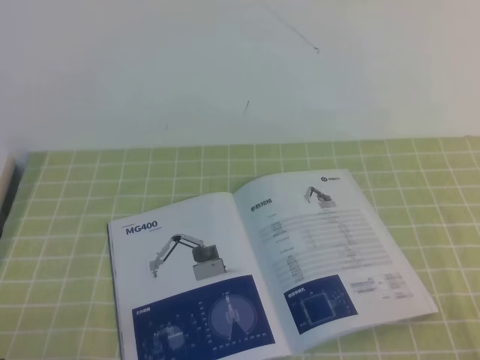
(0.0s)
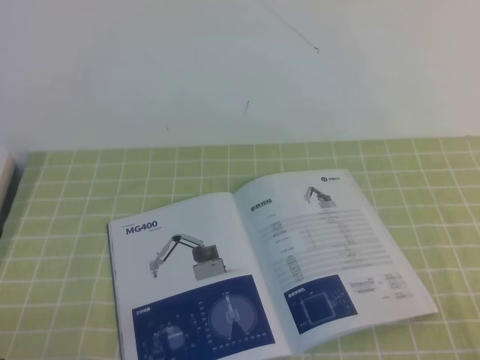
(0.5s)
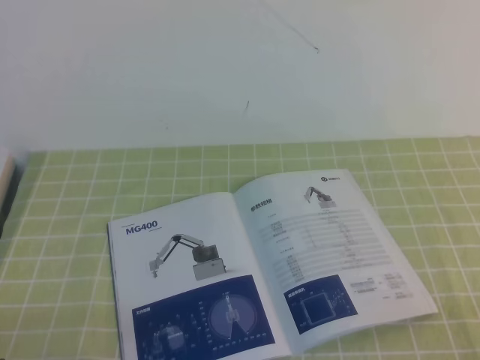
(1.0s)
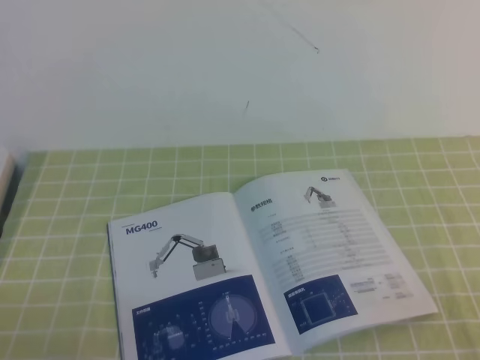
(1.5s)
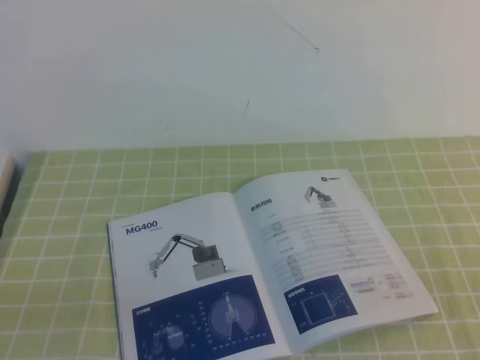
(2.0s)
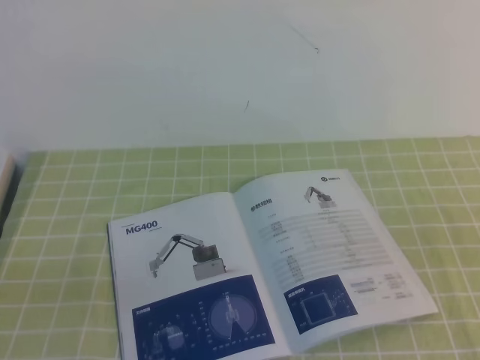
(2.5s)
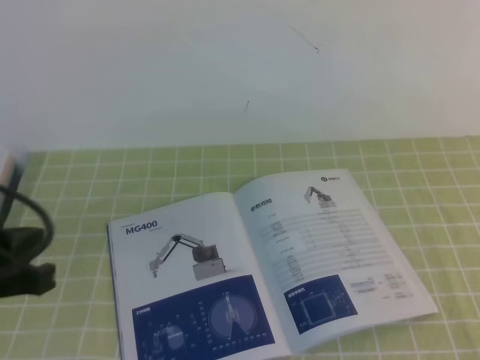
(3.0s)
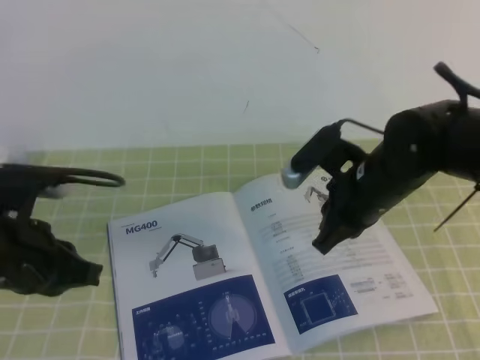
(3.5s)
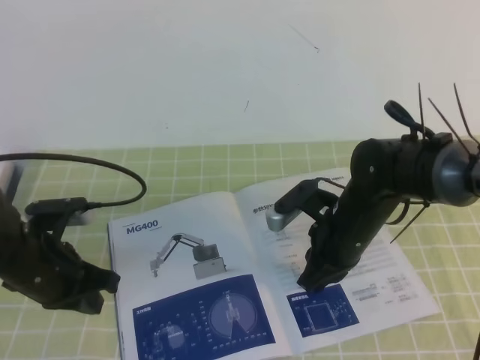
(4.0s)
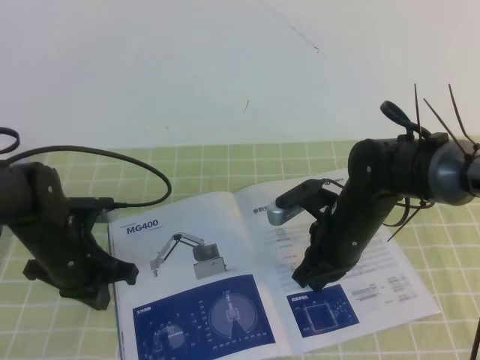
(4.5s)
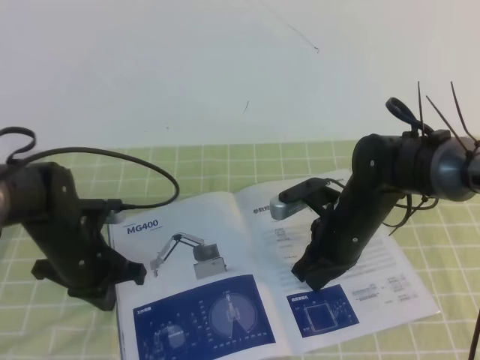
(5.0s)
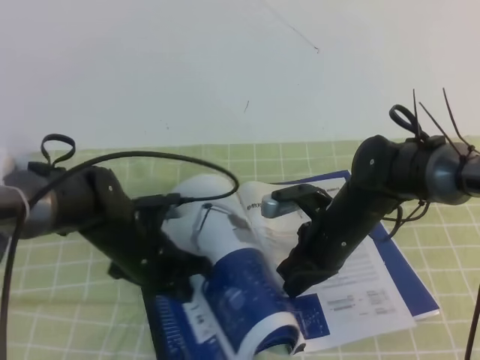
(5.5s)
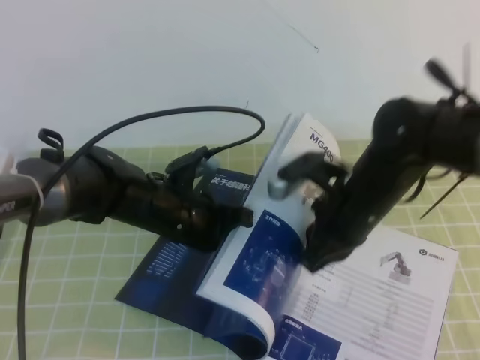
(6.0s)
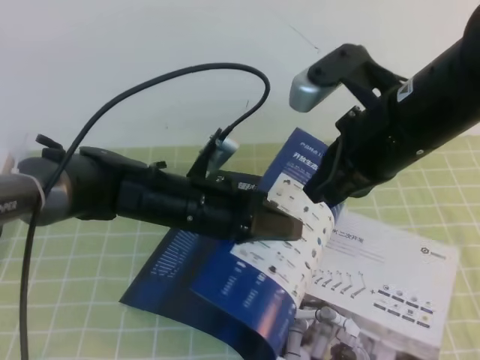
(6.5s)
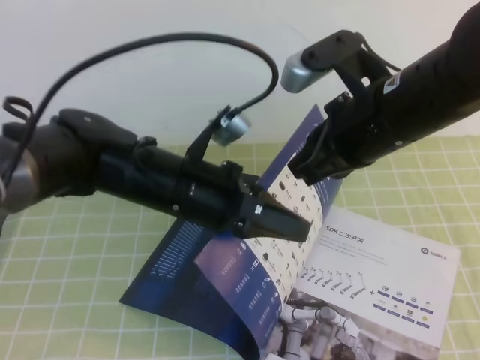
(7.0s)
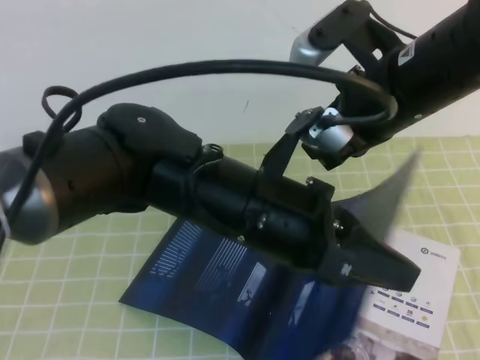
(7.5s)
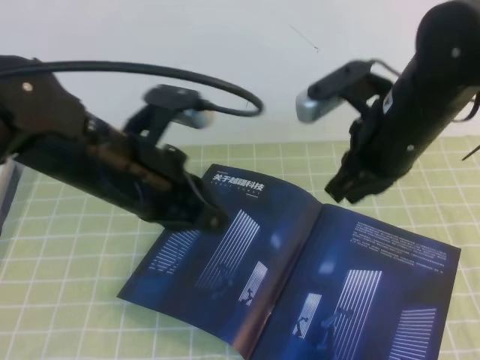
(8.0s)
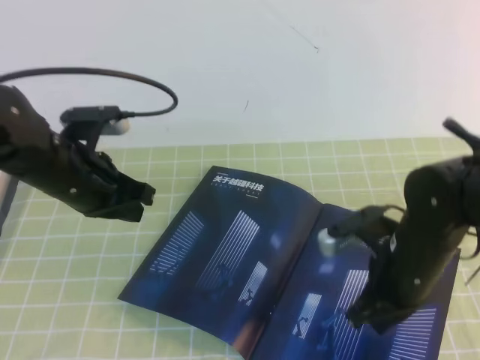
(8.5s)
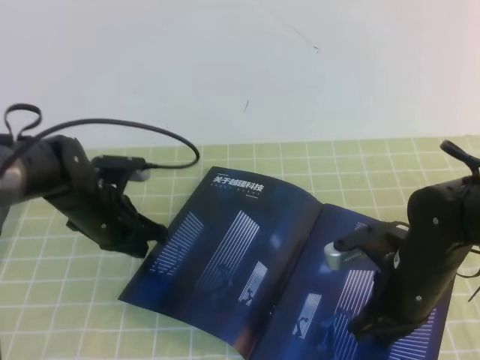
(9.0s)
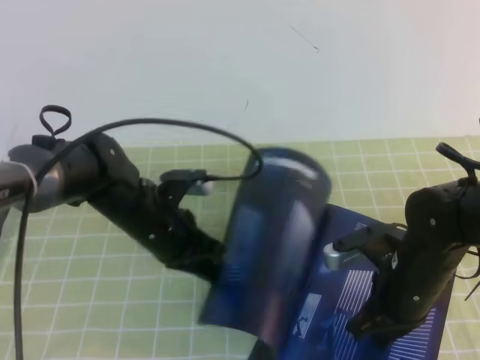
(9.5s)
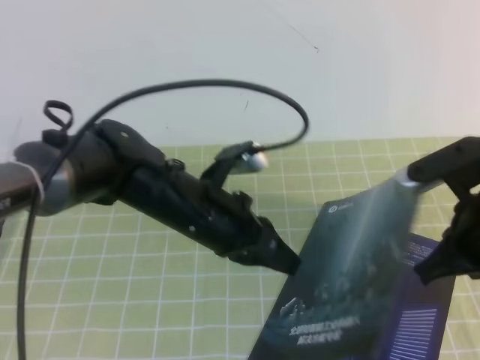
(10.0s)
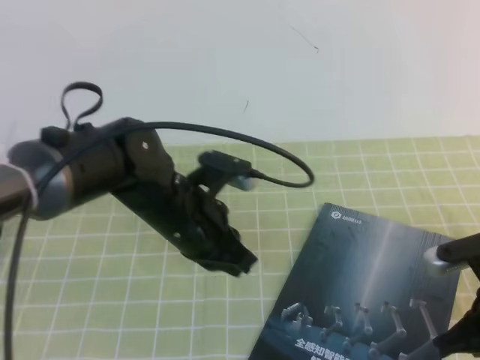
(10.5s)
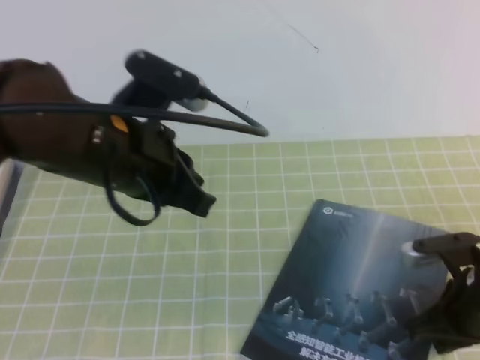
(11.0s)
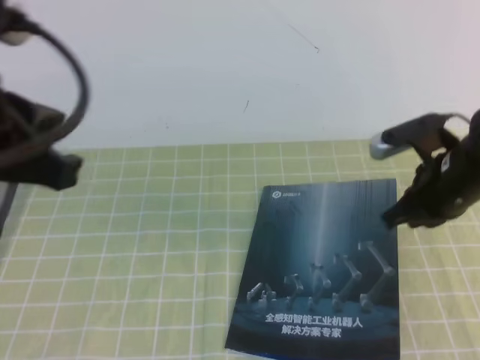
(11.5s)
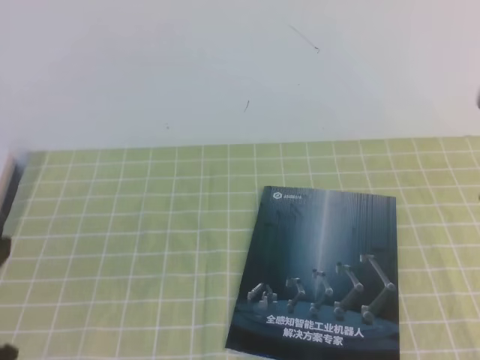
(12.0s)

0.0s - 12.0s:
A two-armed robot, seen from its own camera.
Task of the whole recording: on the green tablecloth, hold the book with one hand and close it with the other.
2.0s - 4.0s: The left gripper shifts approximately 25 cm forward; the right gripper travels forward and to the left by about 35 cm.
4.0s - 6.0s: The right gripper changes place by about 5 cm. The left gripper shifts some 15 cm to the right.
6.0s - 8.0s: The left gripper is displaced upward and backward by roughly 15 cm. The right gripper goes roughly 10 cm upward.
8.0s - 10.0s: The left gripper is displaced downward by roughly 10 cm. The right gripper heads backward, downward and to the right, covering roughly 10 cm.
10.0s - 12.0s: The right gripper goes roughly 10 cm upward and to the right, while the left gripper moves backward, to the left and upward, some 30 cm.

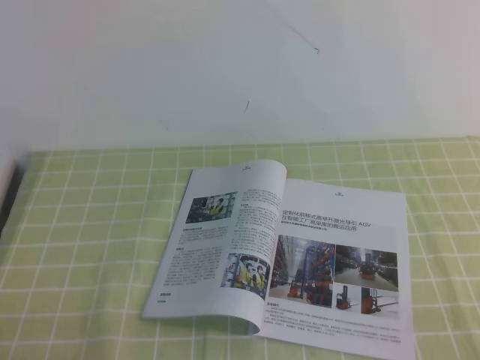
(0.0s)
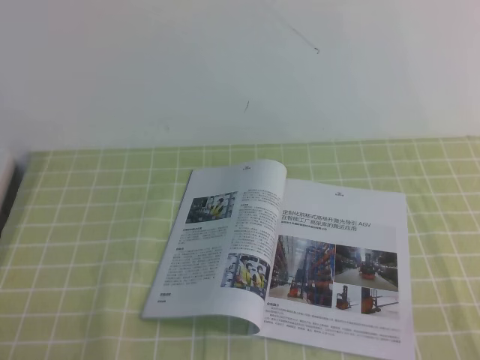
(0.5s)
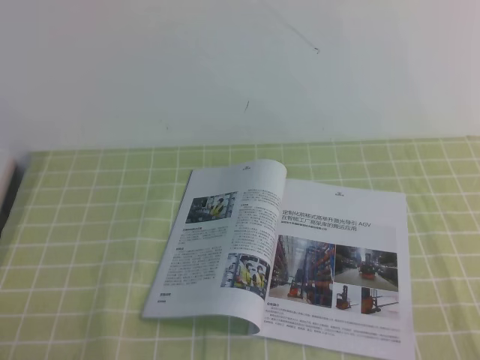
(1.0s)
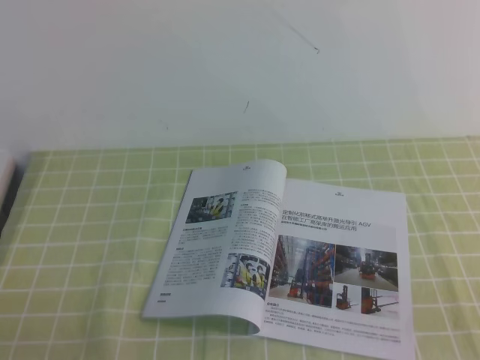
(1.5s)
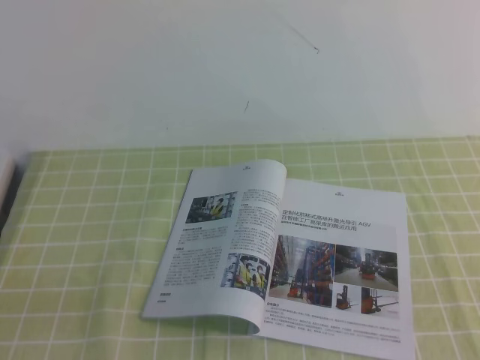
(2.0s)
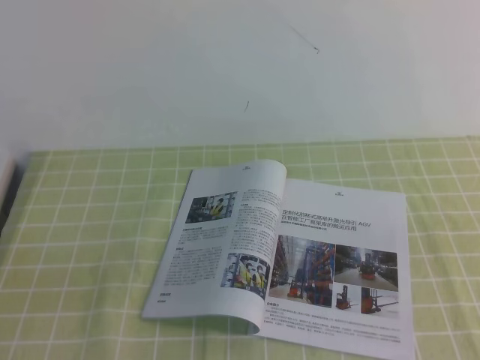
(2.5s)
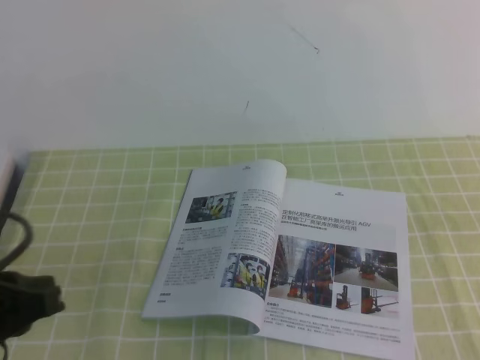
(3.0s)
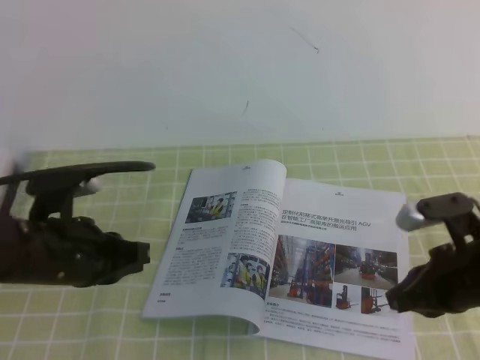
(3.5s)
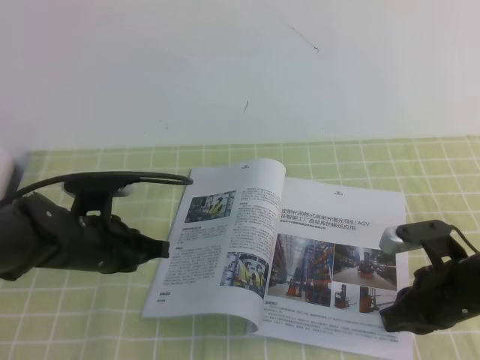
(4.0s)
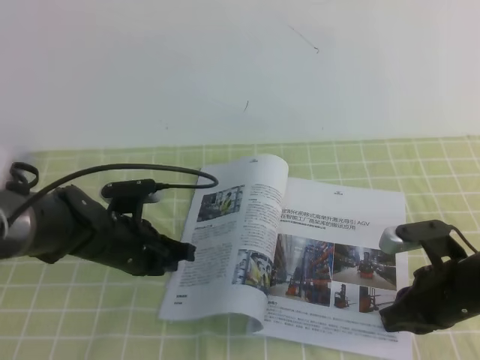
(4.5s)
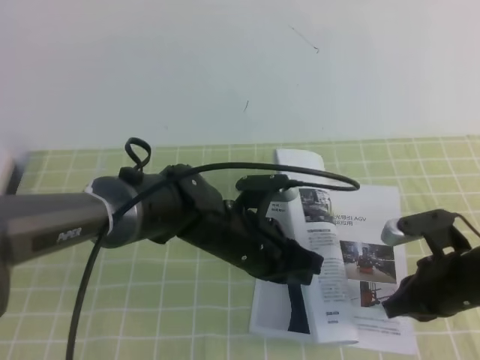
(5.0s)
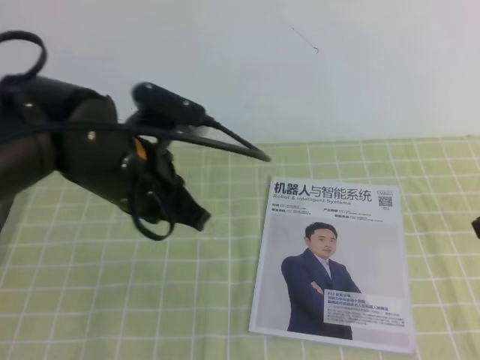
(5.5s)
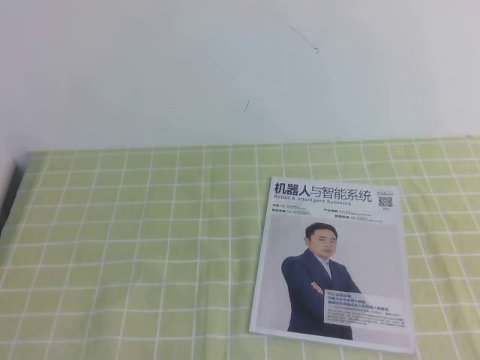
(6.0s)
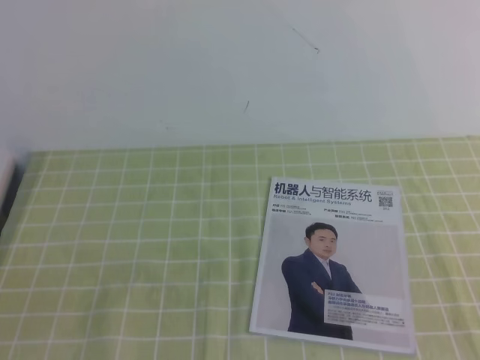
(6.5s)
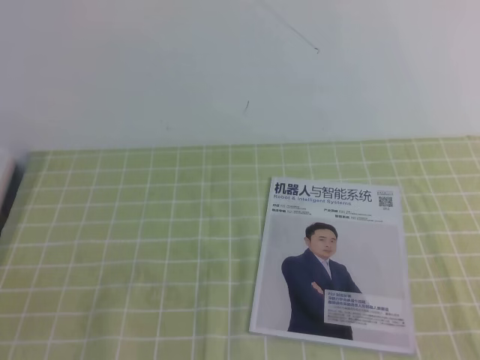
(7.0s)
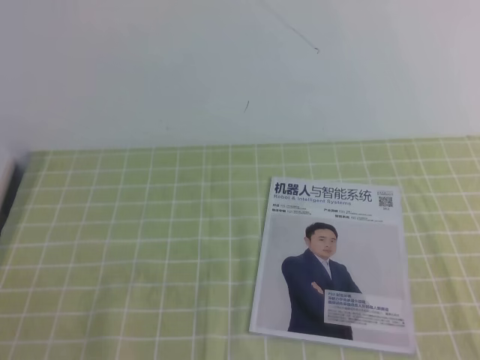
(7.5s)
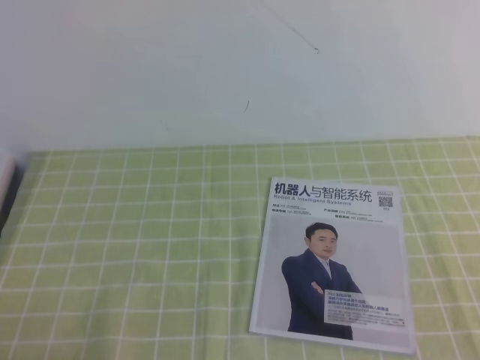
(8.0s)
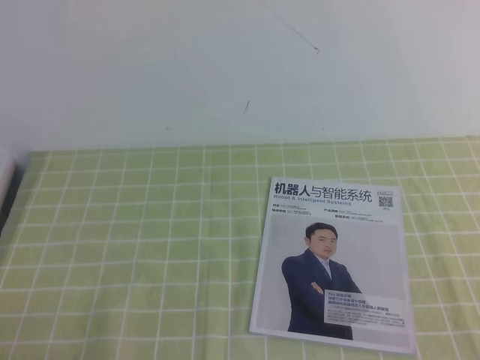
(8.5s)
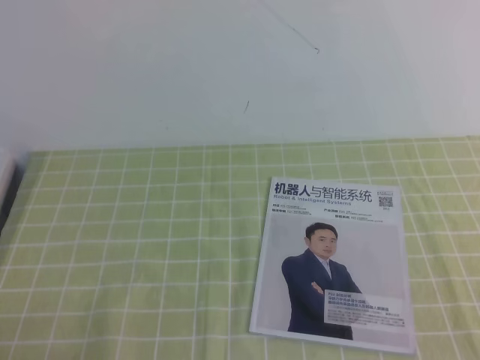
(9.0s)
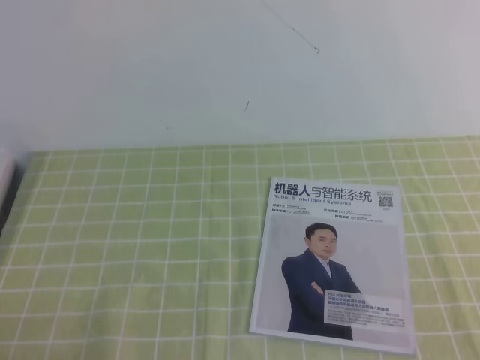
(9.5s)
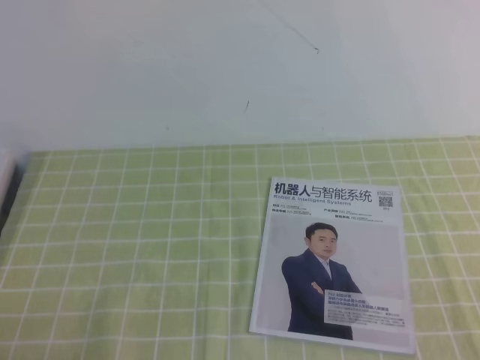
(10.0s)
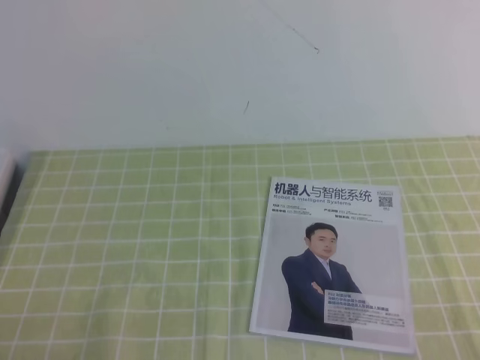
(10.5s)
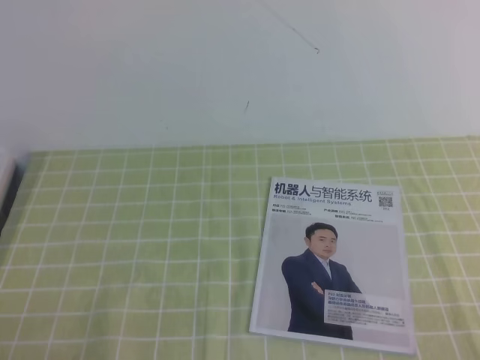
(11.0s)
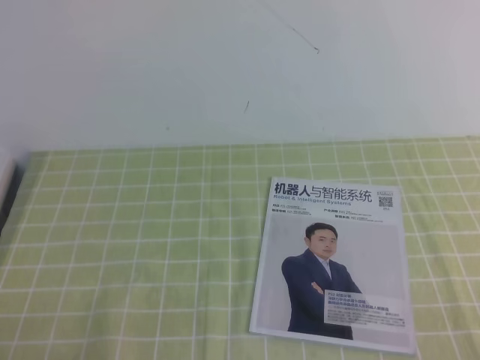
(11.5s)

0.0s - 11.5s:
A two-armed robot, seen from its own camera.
Task of the whole recording: on the green tablecloth, hold the book with one hand and close it with the other.
Step, 0.0s - 11.5s: Close the open book.
2.0s - 4.0s: The left gripper shifts roughly 25 cm forward; the right gripper heads forward, downward and to the left, covering roughly 30 cm.
4.0s - 6.0s: The two grippers go about 25 cm upward and backward.
6.0s - 7.5s: The right gripper moves backward, roughly 10 cm. The left gripper goes approximately 15 cm backward, downward and to the left.
